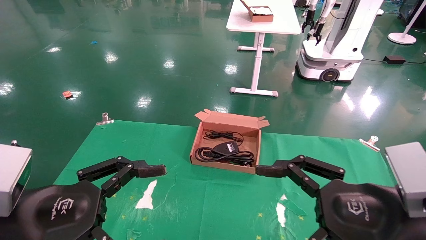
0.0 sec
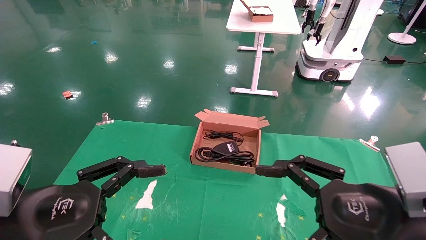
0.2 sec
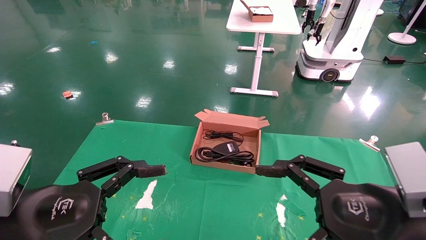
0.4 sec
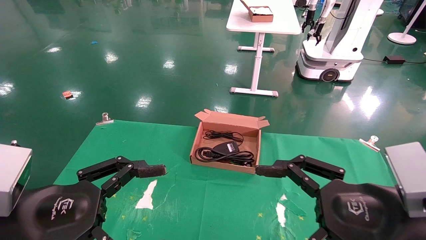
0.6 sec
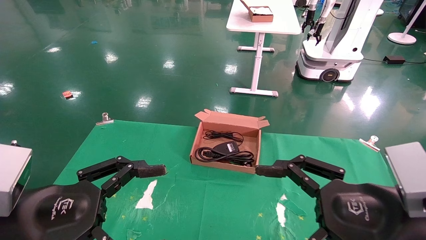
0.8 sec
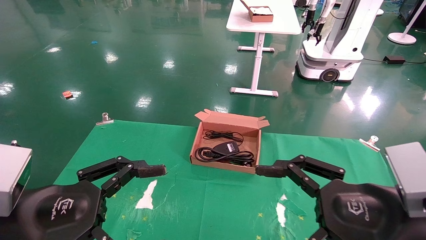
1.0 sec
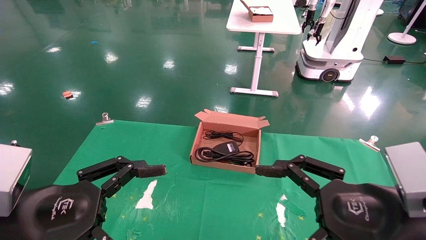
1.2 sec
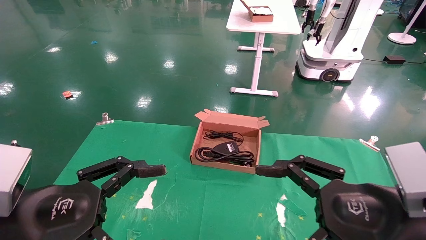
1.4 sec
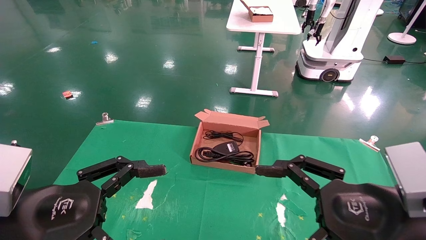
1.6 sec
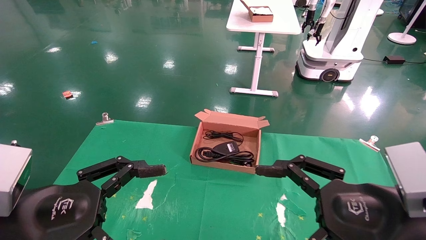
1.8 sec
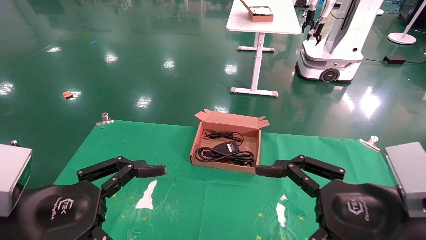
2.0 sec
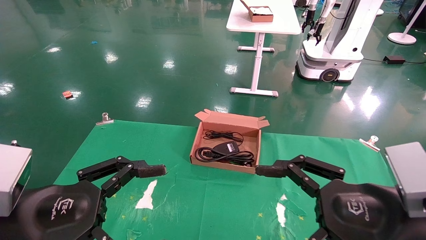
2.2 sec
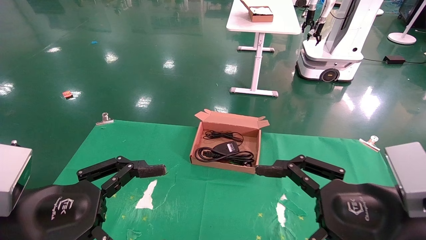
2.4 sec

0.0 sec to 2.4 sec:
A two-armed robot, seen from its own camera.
0.0 sec to 2.4 sec: Neither gripper changes place.
